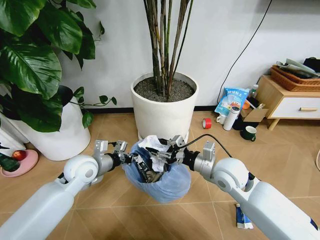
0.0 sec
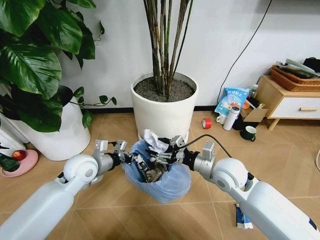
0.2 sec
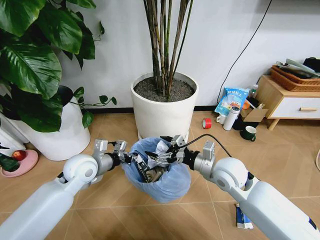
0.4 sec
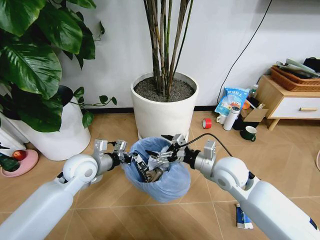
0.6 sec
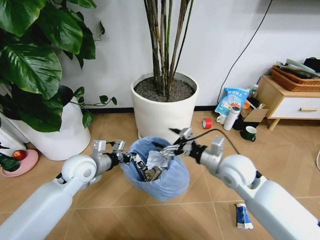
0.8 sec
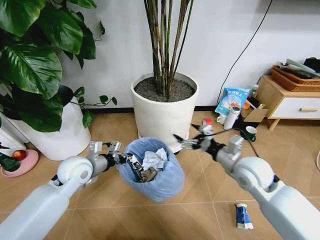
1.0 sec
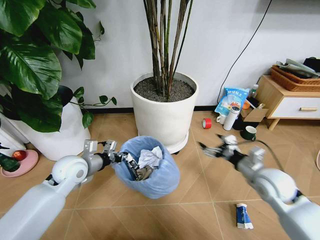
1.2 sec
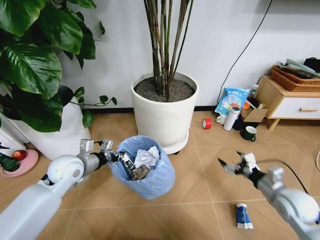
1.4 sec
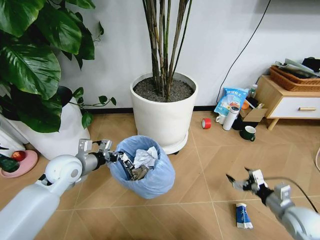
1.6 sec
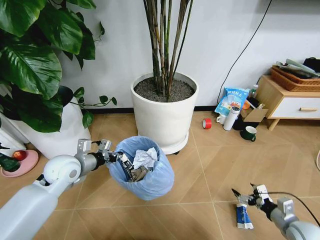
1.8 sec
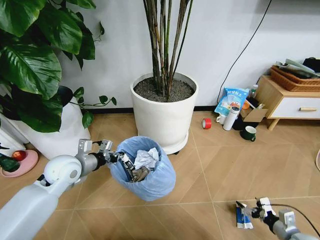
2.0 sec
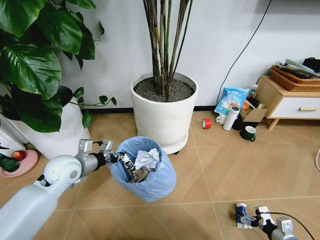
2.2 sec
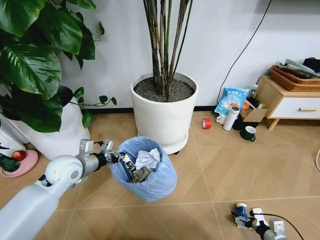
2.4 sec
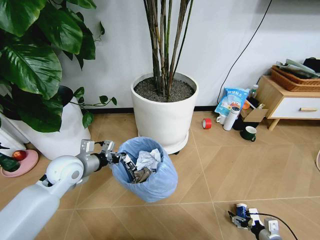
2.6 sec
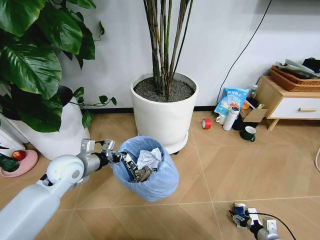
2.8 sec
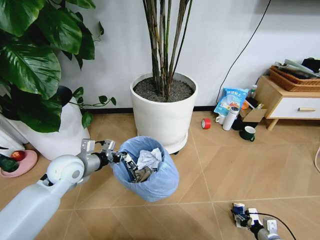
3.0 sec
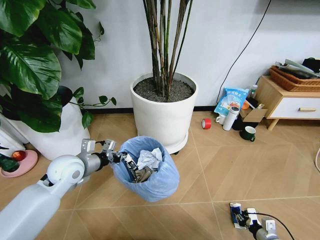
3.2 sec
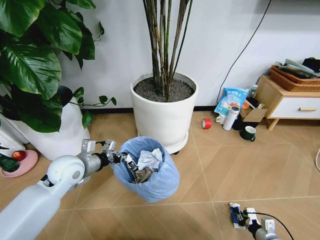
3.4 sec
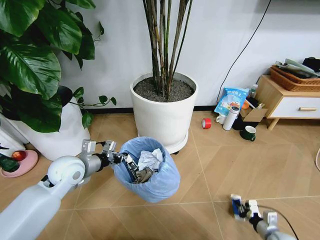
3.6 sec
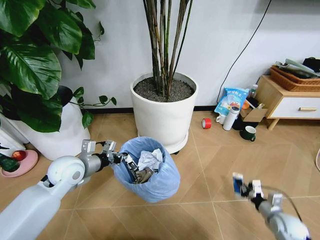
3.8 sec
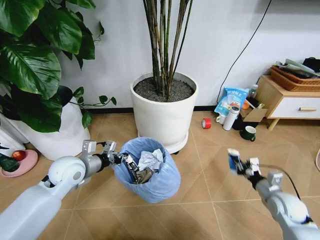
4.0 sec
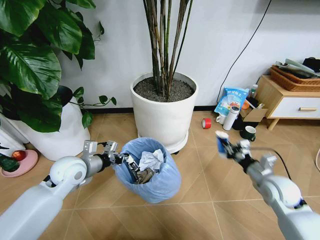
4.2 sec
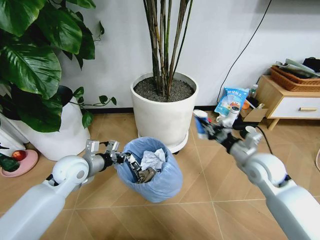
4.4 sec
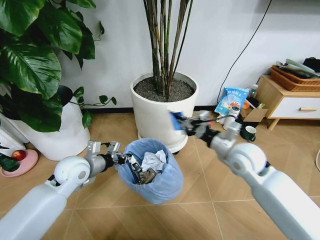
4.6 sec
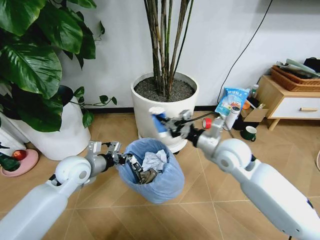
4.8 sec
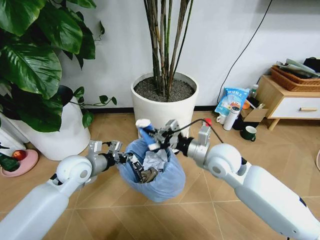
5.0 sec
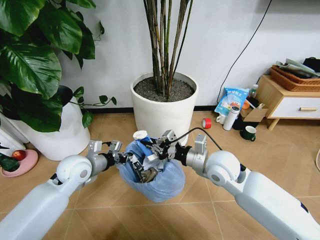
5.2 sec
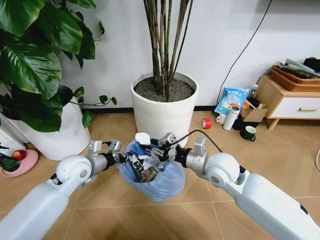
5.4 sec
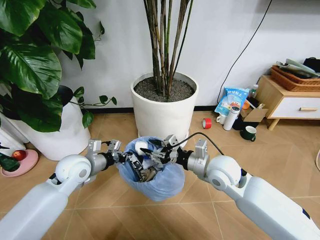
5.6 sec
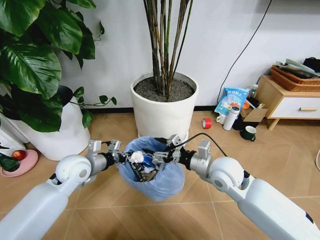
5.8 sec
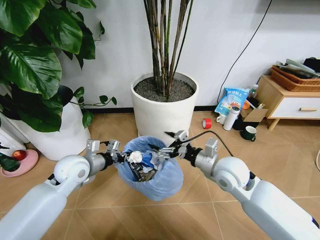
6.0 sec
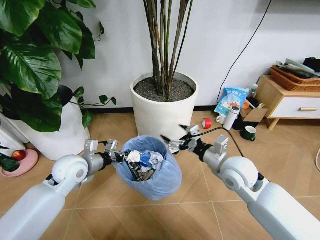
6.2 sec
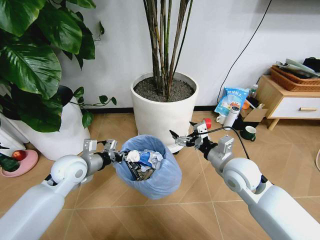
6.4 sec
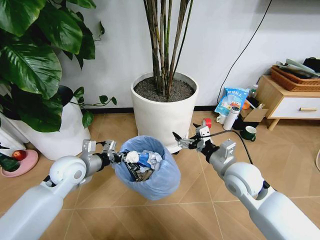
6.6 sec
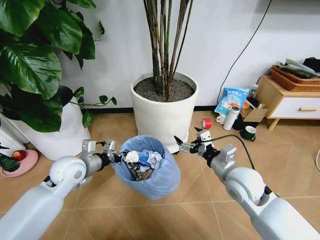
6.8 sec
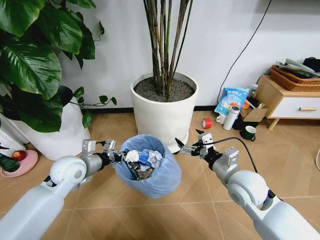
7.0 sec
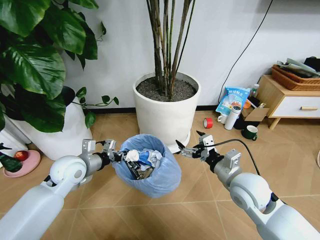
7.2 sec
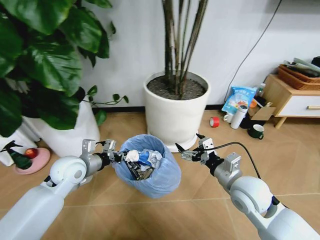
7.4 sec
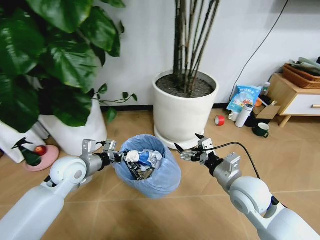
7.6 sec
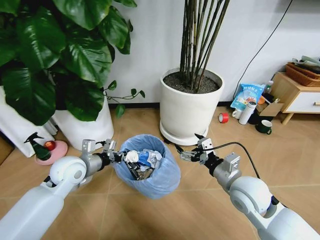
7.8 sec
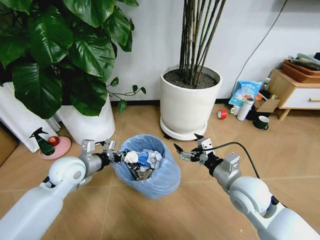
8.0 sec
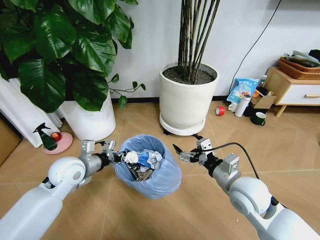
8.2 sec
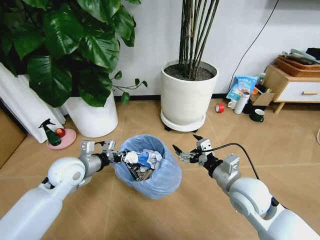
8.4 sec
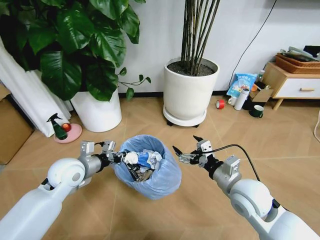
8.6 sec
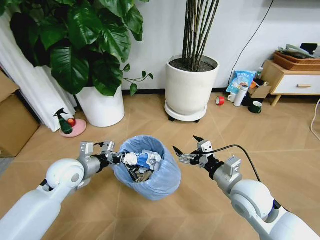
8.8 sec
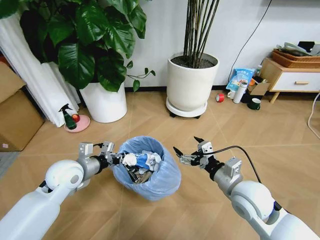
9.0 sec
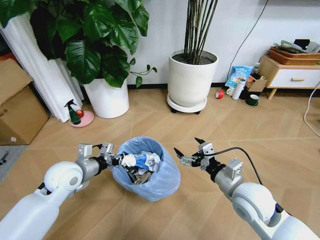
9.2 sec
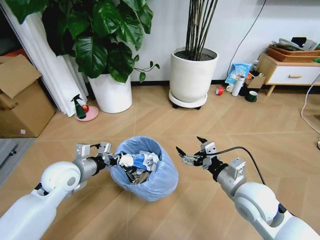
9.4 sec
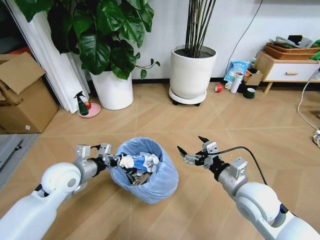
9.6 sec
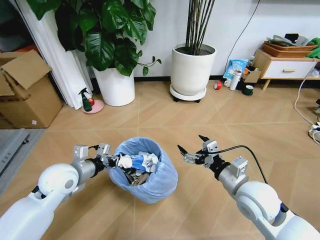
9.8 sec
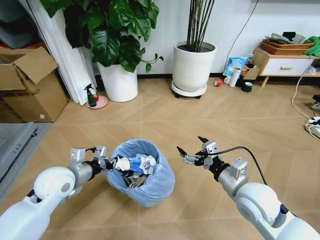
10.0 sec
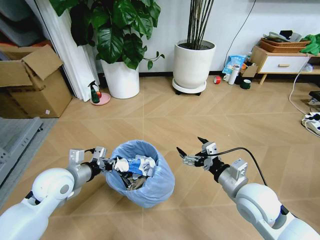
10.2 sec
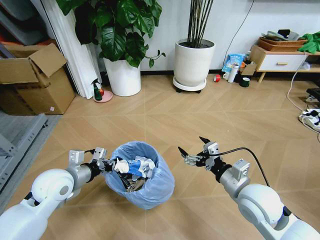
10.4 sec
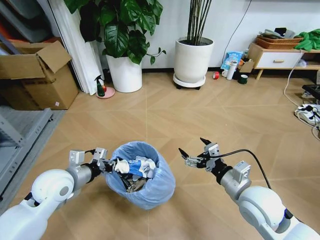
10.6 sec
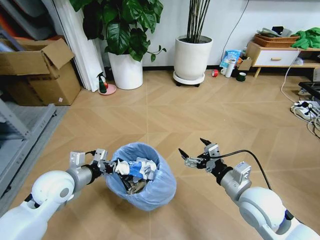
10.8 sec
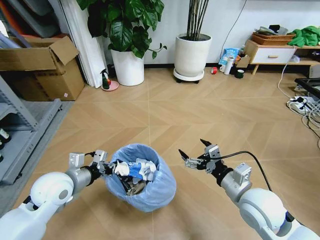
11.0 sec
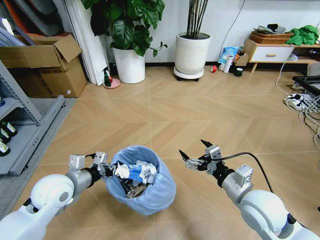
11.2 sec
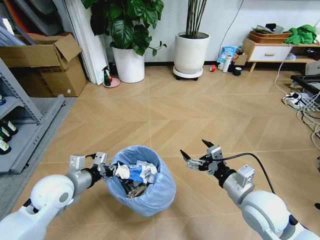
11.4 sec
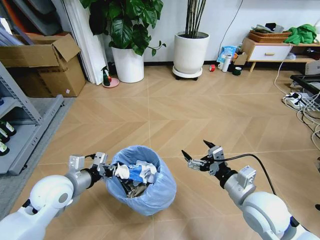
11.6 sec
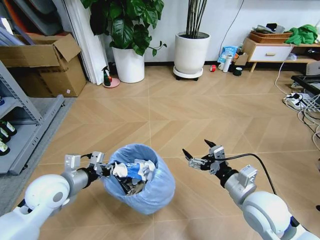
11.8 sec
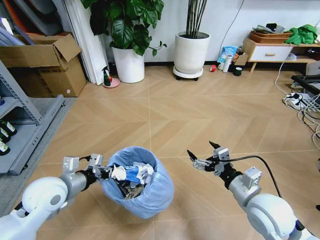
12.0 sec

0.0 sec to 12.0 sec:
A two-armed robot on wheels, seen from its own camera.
Task of the whole recording: Pick up the trash bin and place the garbage on the floor into it.
0.0 sec to 1.6 sec: The left gripper goes approximately 5 cm to the left; the right gripper shifts about 30 cm to the right, downward and backward, and opens up.
1.6 sec to 3.0 sec: The right gripper moves downward, about 15 cm, and closes up.
3.0 sec to 4.4 sec: The right gripper moves upward, forward and to the left, roughly 40 cm, and closes.
4.4 sec to 6.0 sec: The right gripper is displaced to the left by roughly 10 cm, and opens up.
6.0 sec to 7.6 sec: The right gripper heads backward, covering some 5 cm.

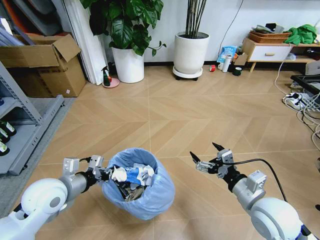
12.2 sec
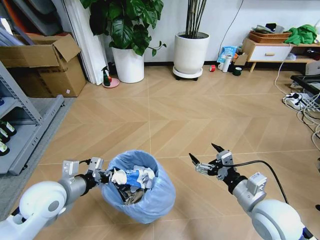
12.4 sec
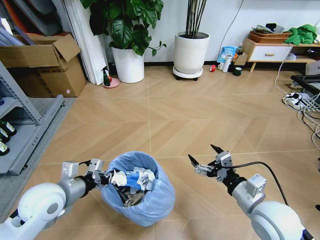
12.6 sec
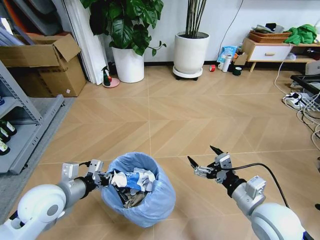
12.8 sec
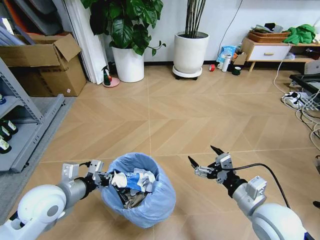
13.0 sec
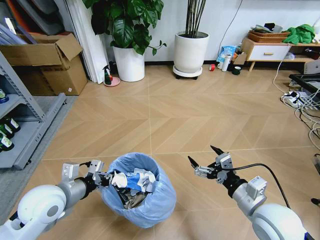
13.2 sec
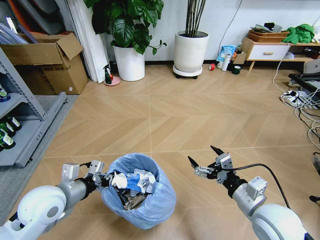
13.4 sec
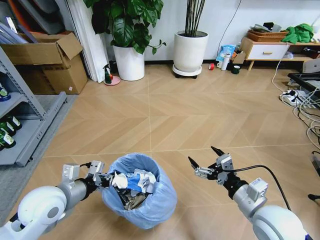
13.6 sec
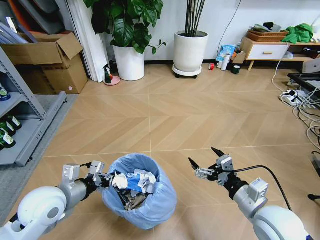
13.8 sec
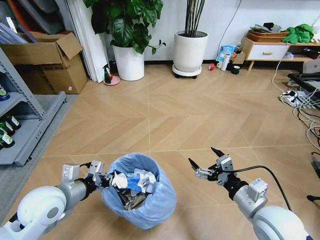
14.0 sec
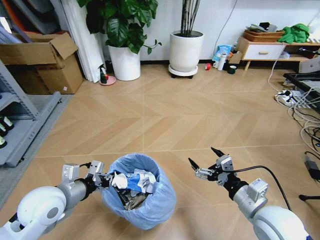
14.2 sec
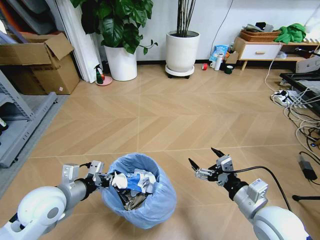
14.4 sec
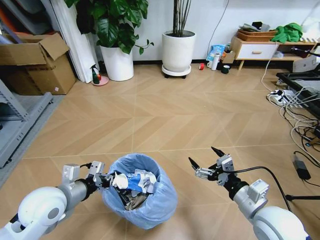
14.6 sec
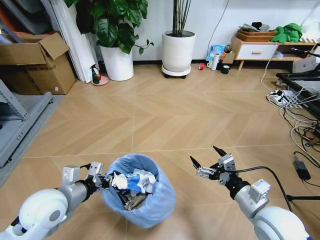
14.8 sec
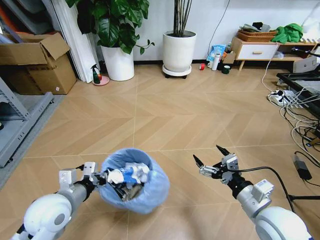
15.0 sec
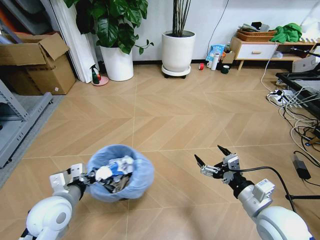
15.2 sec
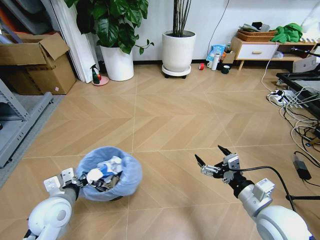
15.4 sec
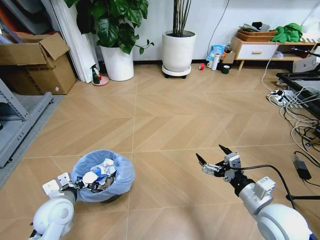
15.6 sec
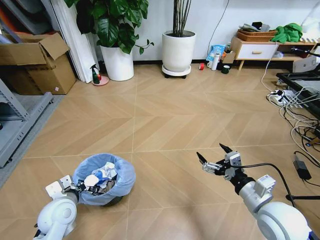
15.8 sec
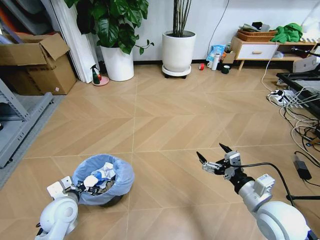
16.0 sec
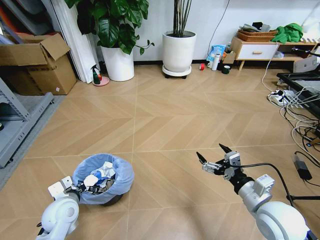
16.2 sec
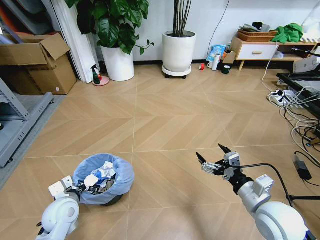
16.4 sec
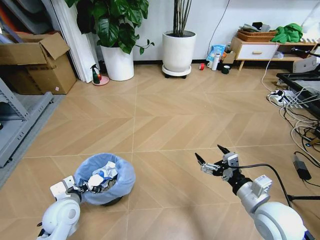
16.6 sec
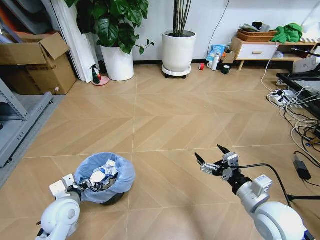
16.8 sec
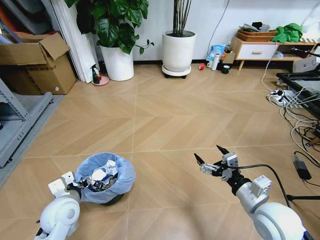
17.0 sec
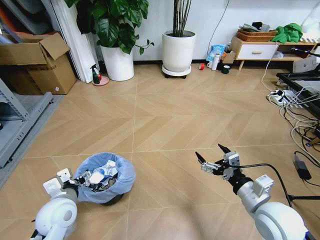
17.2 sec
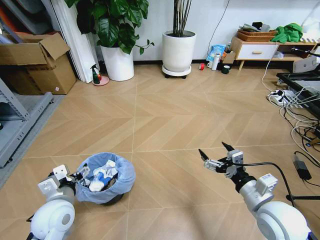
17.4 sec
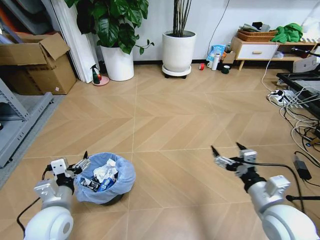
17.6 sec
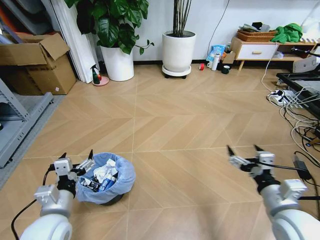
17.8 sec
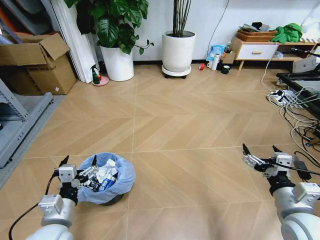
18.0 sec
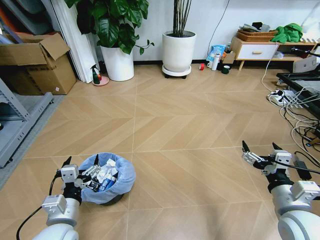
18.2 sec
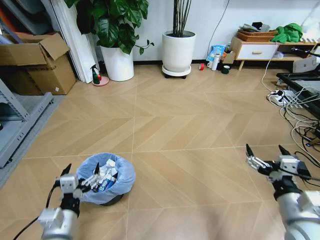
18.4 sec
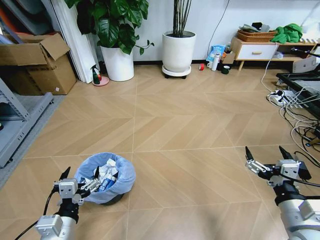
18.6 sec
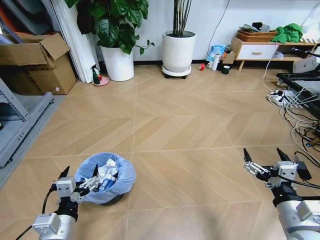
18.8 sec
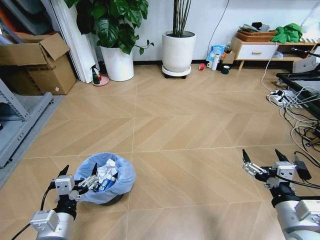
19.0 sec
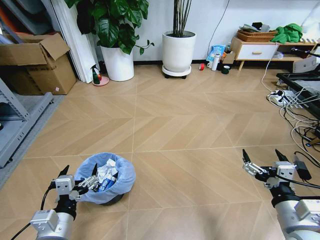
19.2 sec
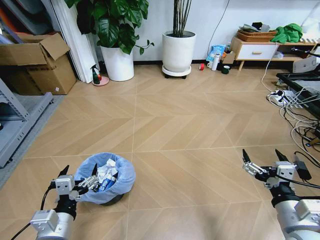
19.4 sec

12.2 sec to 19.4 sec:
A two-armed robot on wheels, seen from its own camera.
Task of the whole recording: Pick up the trash bin and place the garbage on the floor into it.
15.0 sec to 16.6 sec: The left gripper goes some 10 cm downward.
16.6 sec to 18.0 sec: The right gripper ends up some 5 cm from where it was; the left gripper heads backward and upward, covering roughly 10 cm, and opens its fingers.
18.0 sec to 19.4 sec: The grippers move only a little.
